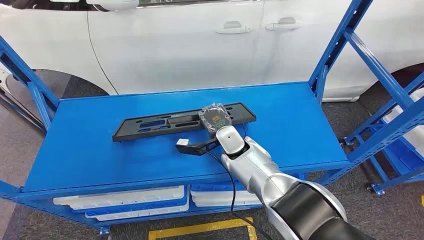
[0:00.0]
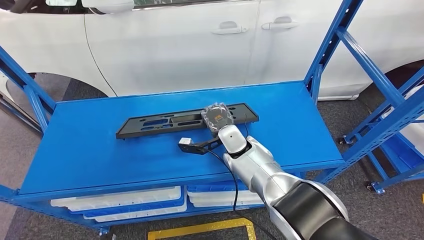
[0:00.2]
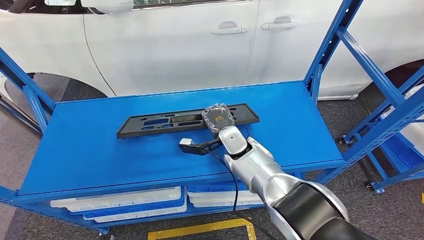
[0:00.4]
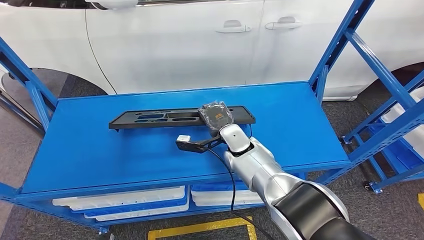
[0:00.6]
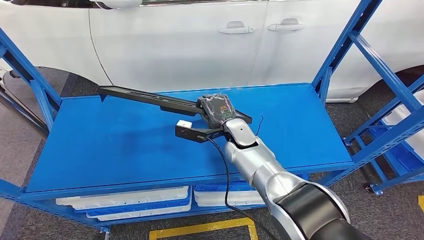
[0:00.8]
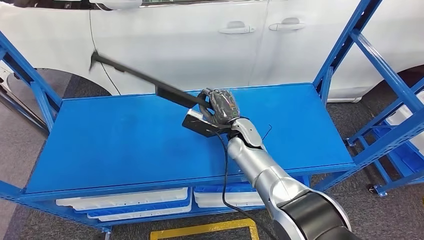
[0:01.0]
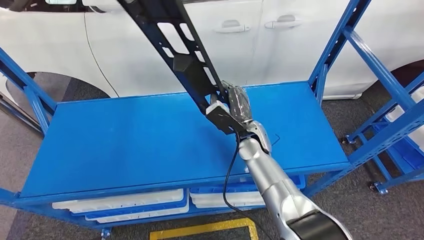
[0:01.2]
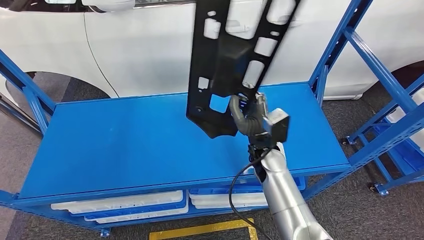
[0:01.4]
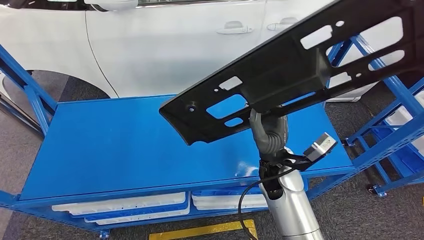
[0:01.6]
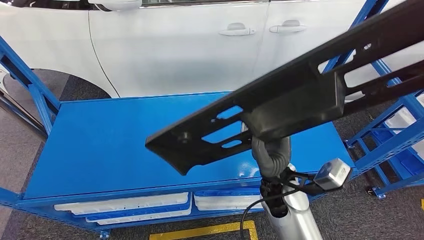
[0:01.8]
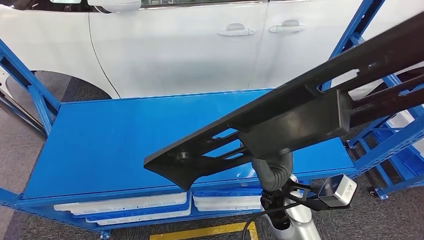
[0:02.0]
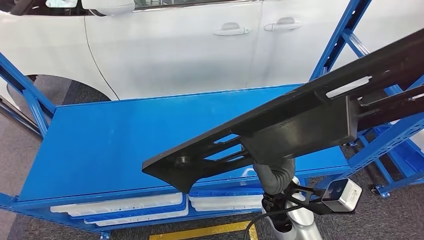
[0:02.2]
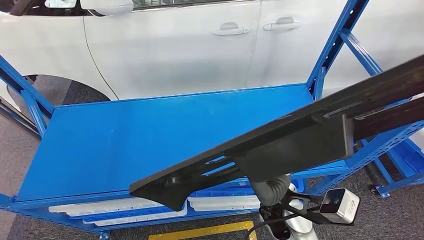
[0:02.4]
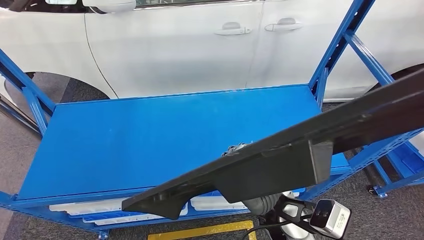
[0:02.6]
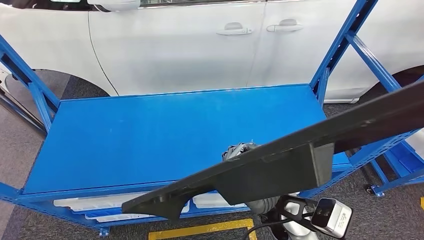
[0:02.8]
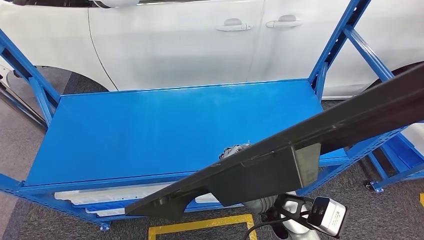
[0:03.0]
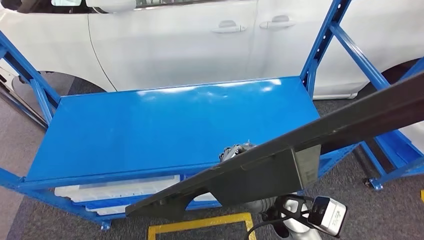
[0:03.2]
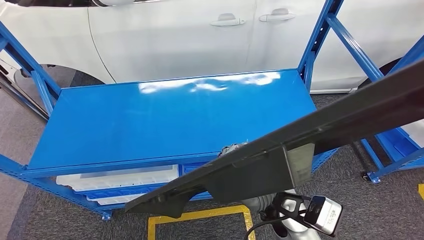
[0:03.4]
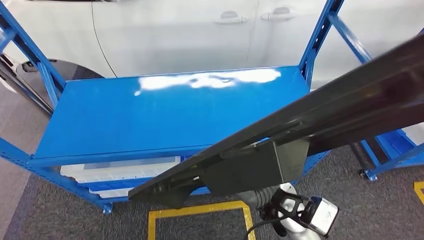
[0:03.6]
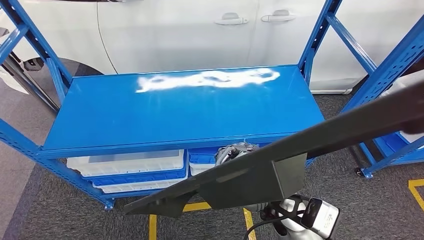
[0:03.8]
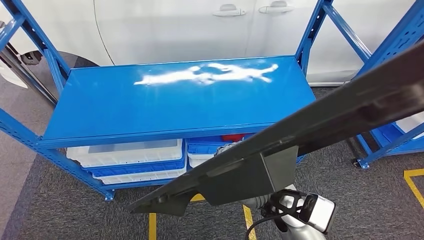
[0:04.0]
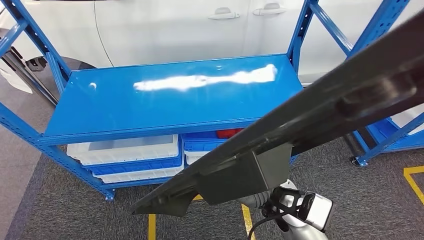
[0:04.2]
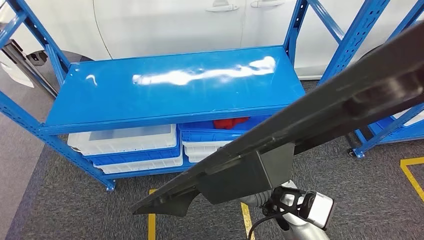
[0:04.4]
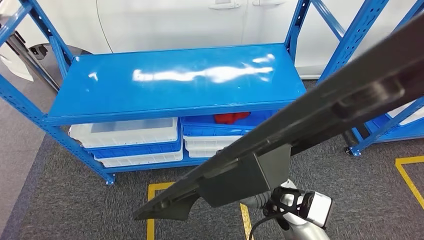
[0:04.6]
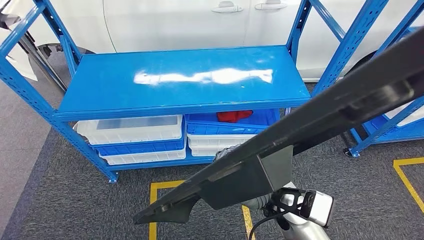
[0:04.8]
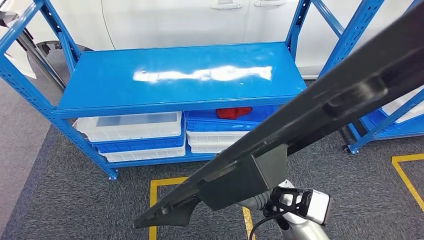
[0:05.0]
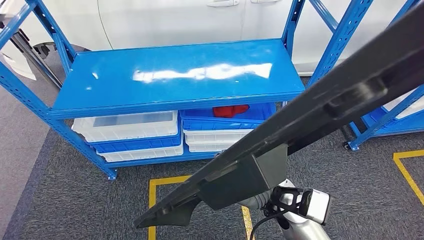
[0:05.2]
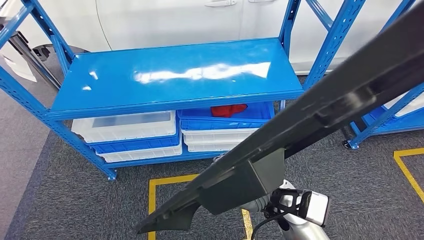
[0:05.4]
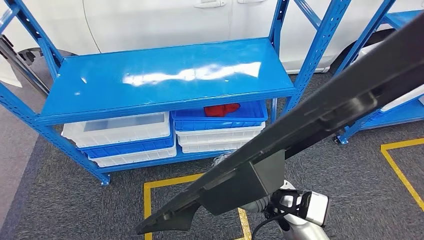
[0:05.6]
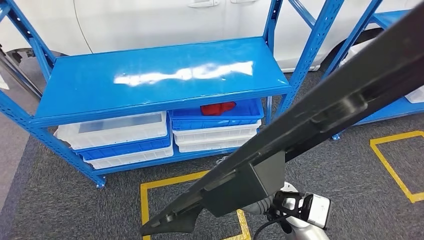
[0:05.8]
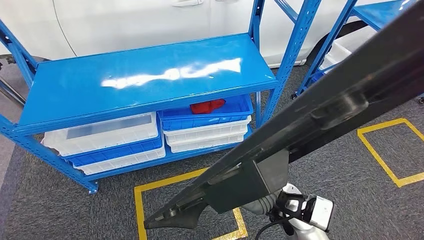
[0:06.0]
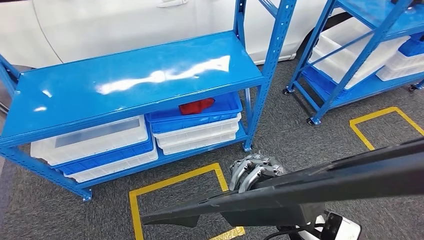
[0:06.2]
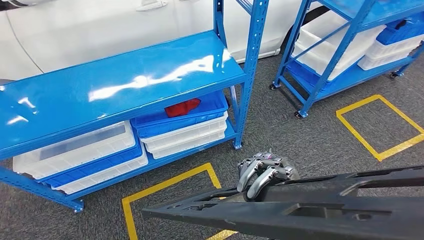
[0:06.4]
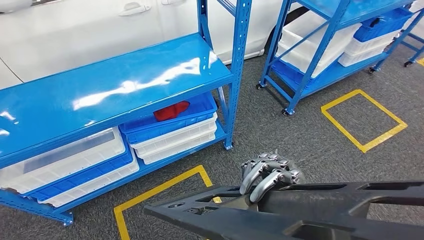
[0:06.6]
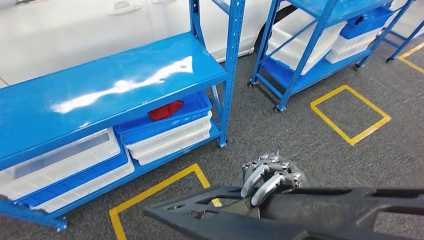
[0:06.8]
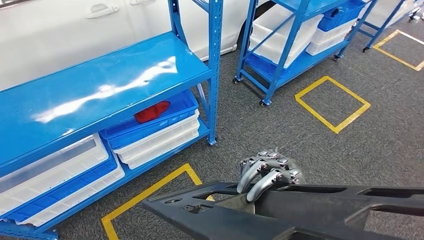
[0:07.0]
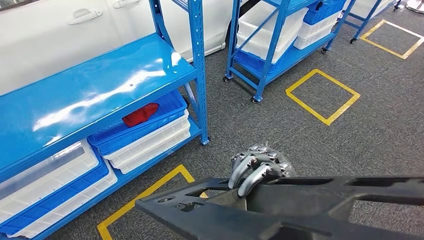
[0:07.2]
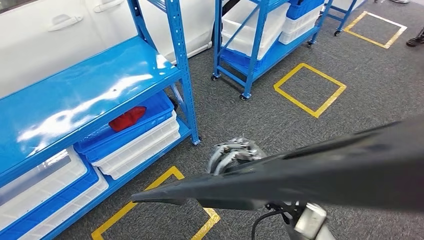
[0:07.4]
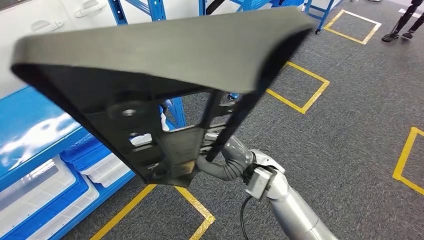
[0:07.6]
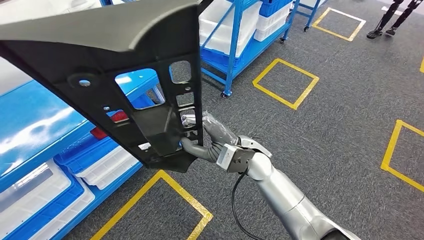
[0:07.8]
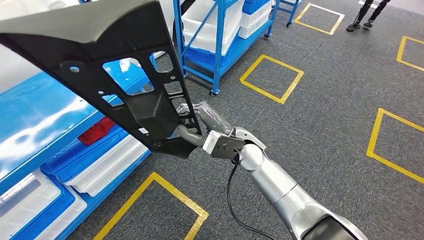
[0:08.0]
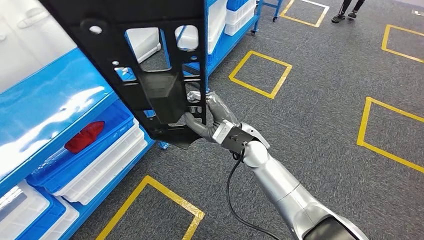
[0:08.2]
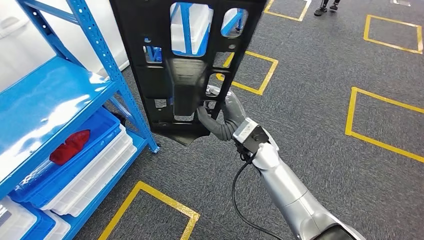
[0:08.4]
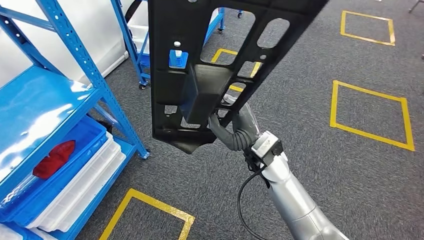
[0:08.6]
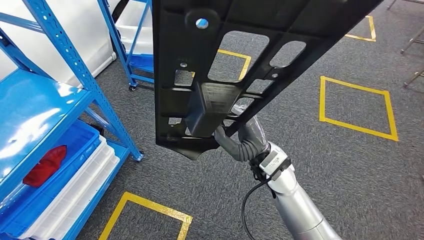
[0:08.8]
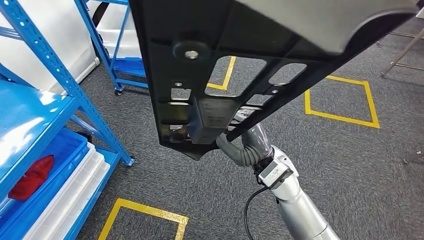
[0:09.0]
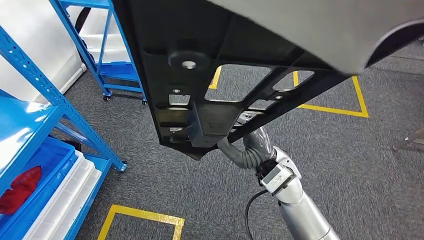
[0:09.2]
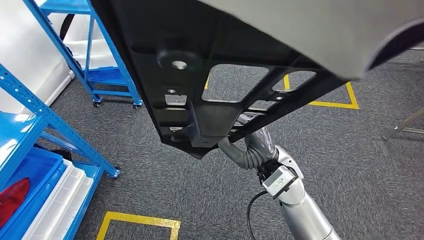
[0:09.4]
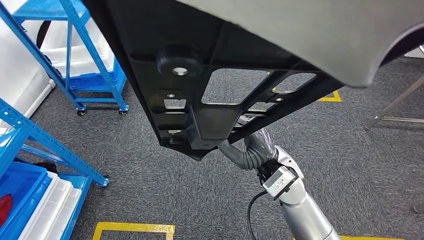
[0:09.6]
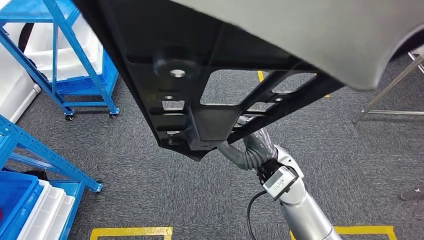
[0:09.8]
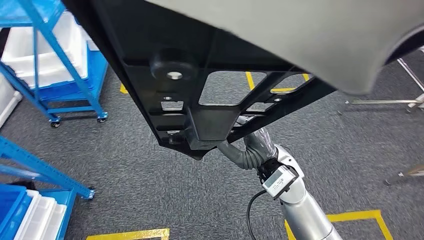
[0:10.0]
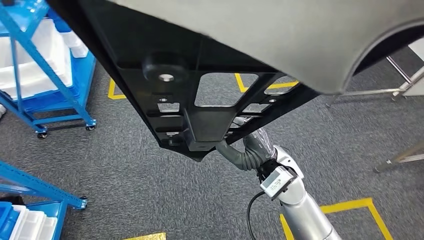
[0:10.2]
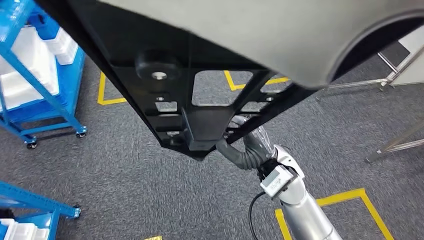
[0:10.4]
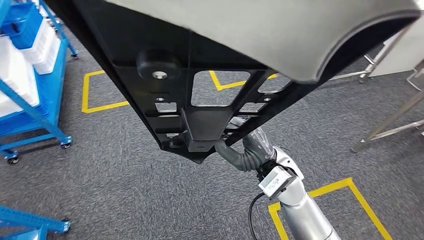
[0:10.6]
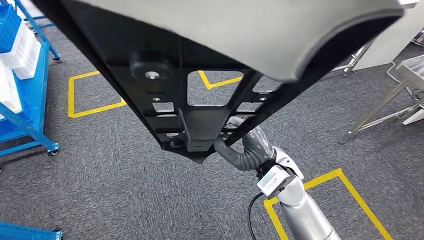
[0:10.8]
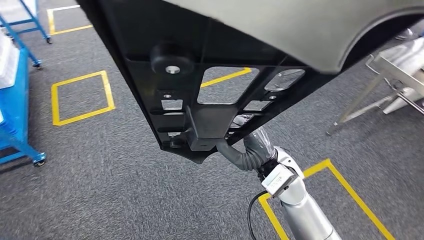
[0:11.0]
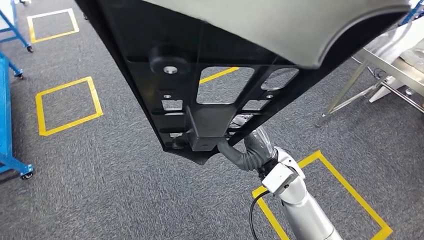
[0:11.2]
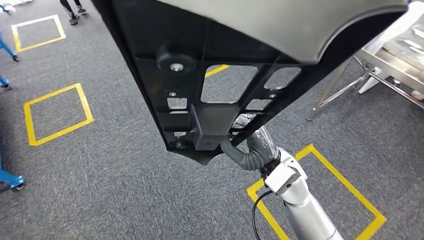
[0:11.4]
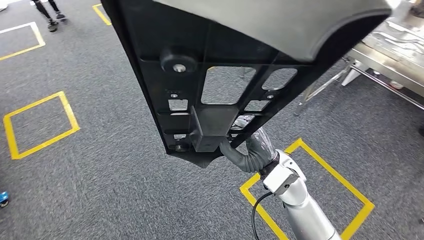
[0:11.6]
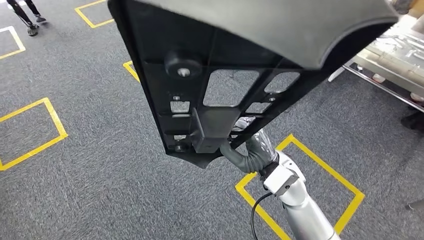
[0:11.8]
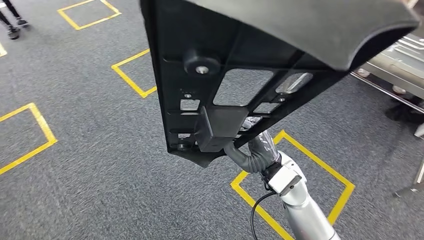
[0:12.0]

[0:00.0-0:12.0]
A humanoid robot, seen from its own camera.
Step, 0:00.0 to 0:02.8: Pick up the large material from the shelf.

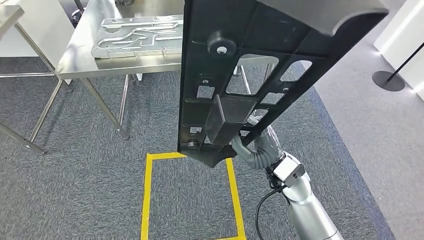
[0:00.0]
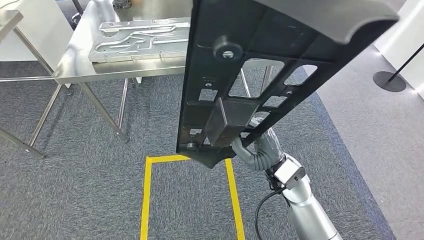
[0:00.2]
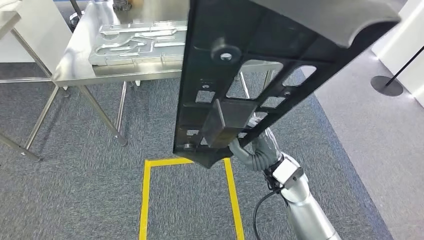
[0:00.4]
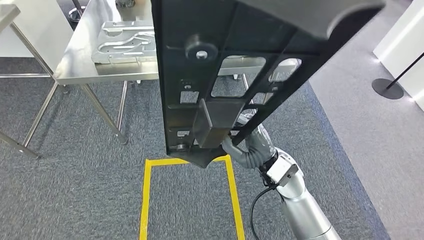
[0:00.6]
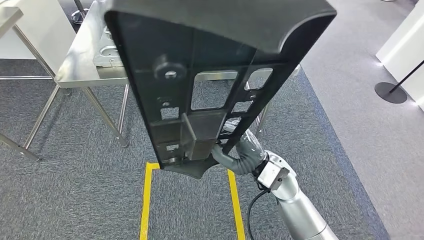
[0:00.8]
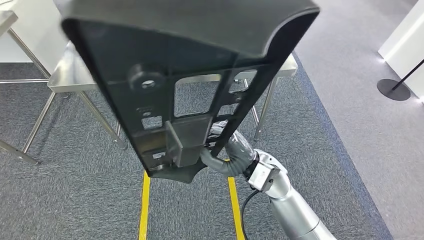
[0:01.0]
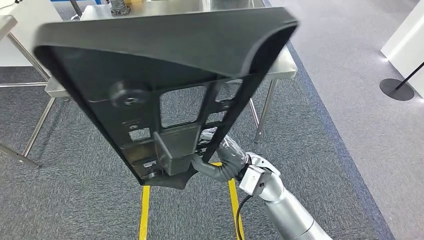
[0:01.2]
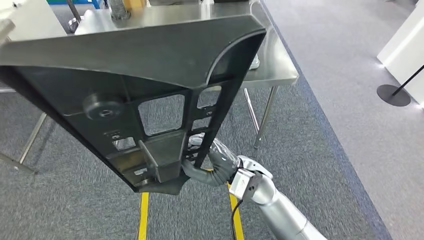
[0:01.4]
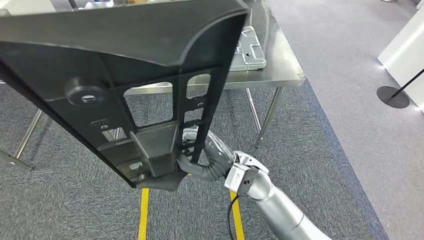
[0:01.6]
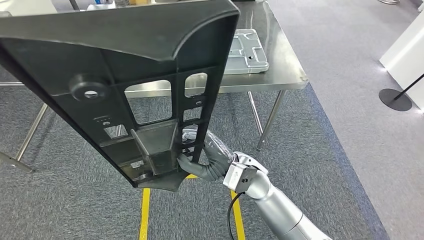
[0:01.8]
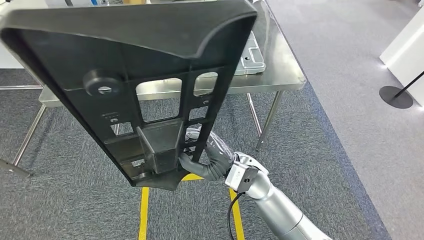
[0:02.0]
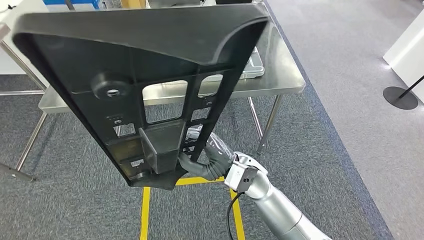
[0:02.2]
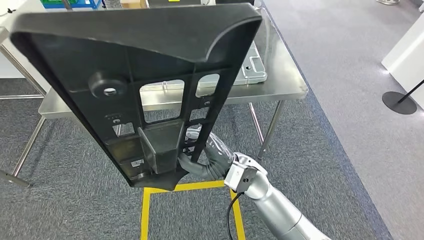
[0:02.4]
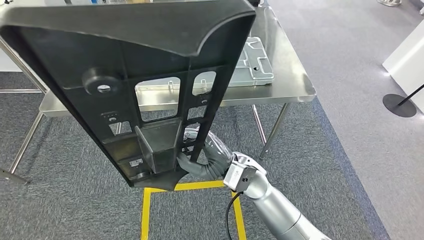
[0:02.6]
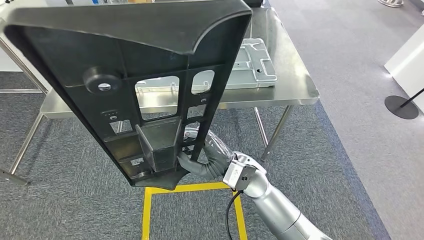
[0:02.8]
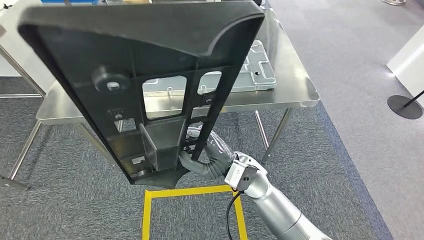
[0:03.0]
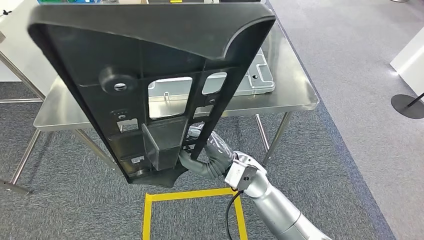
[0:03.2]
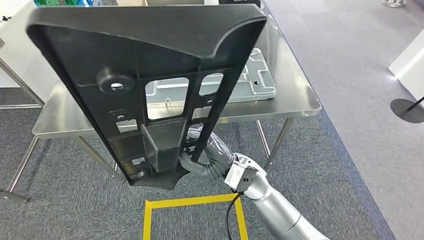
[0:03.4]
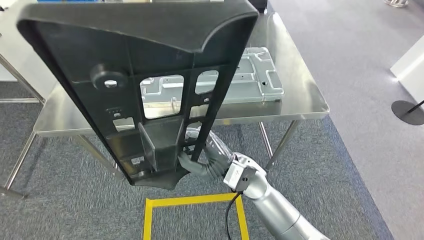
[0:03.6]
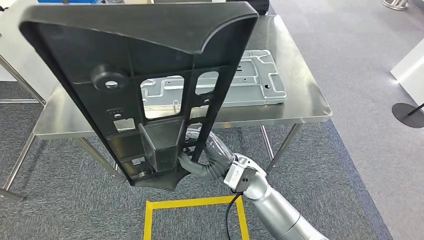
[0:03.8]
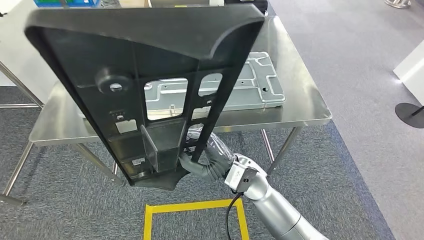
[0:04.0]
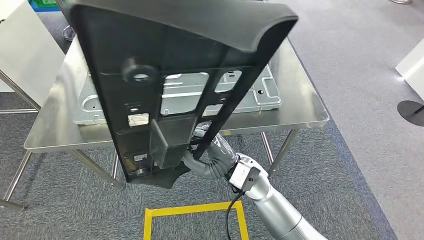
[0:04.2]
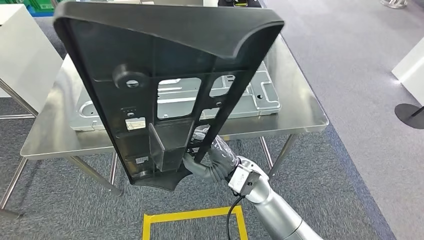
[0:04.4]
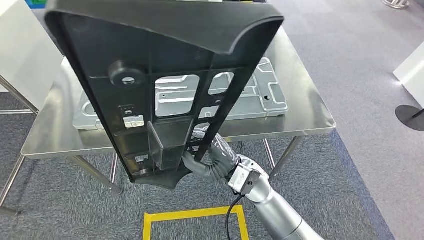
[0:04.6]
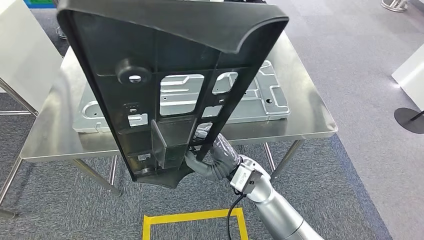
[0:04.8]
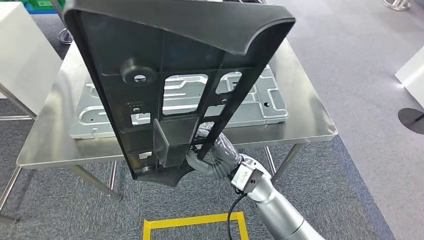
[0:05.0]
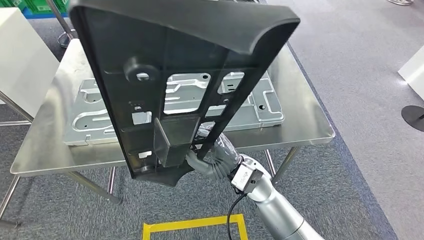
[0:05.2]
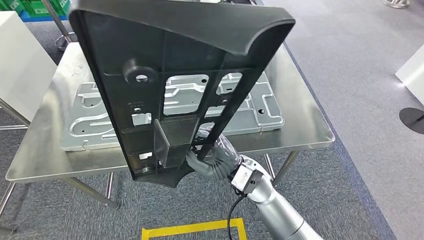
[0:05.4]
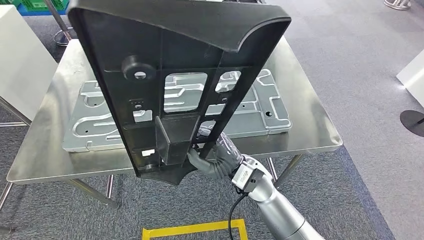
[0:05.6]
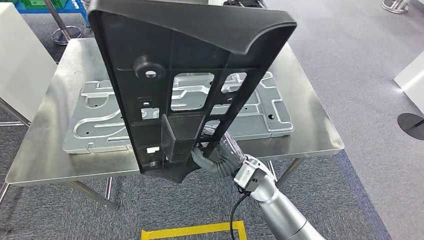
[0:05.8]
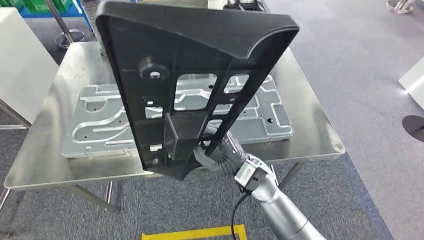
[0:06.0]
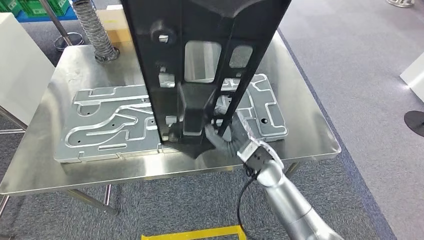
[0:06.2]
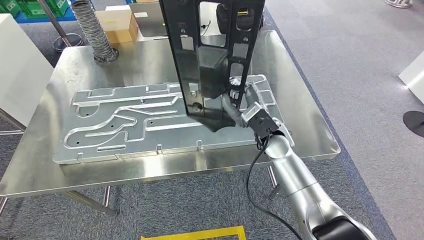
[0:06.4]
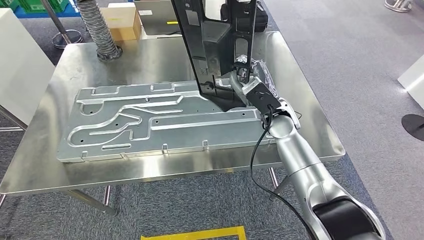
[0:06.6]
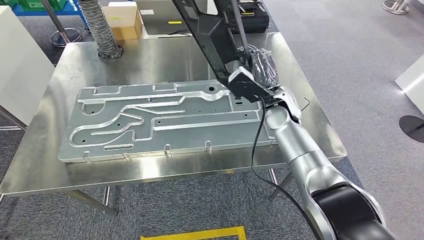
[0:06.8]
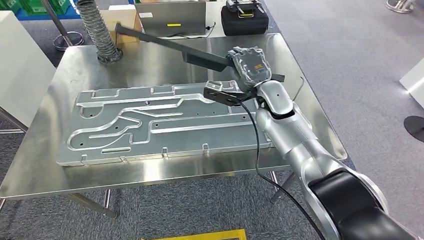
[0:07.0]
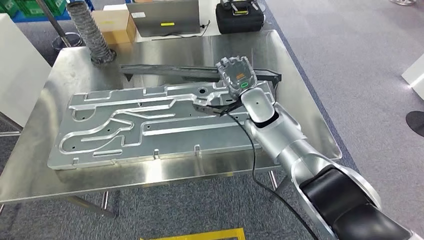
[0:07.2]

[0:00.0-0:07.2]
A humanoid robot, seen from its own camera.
Step, 0:00.0 to 0:04.0: Move the large material to the workbench.
